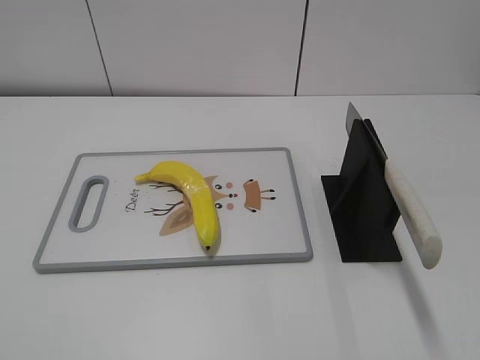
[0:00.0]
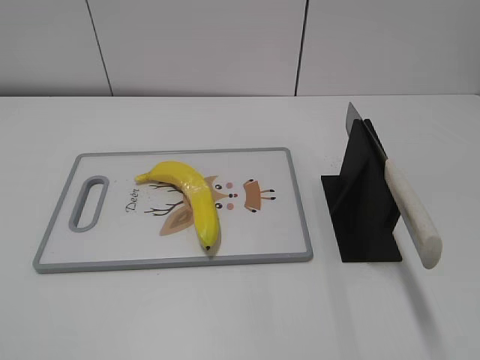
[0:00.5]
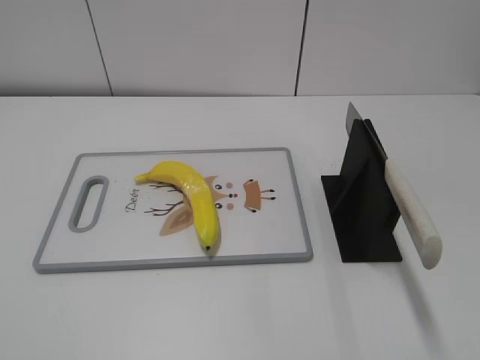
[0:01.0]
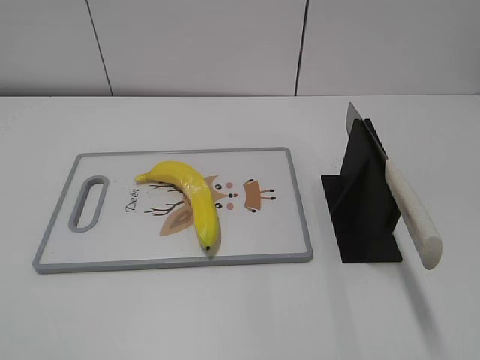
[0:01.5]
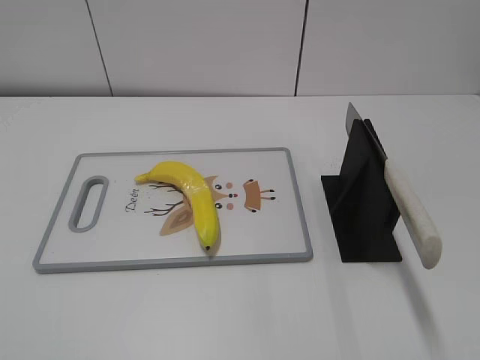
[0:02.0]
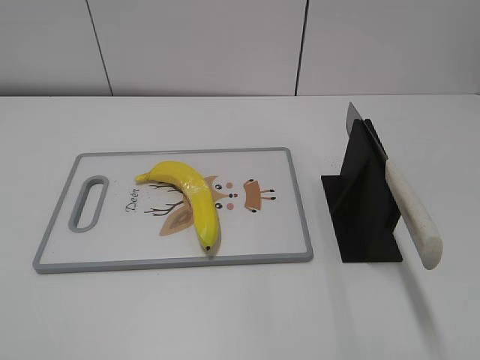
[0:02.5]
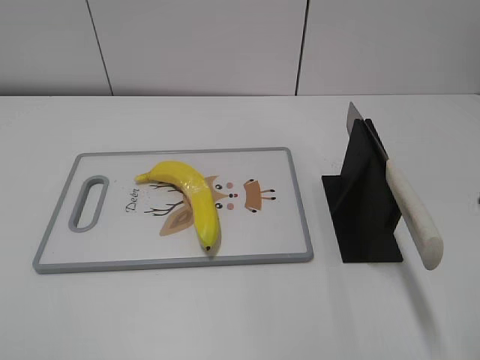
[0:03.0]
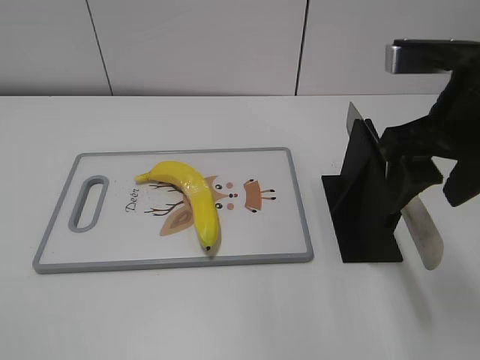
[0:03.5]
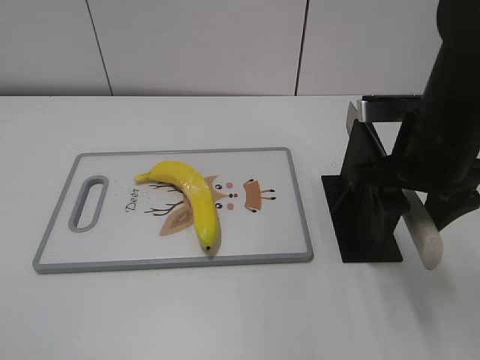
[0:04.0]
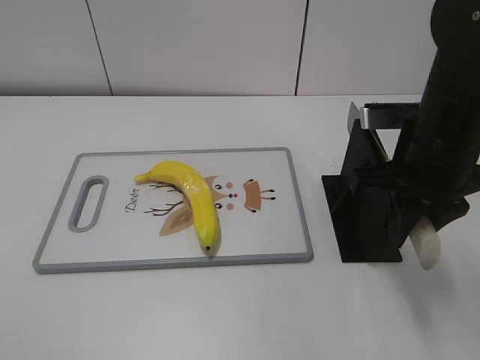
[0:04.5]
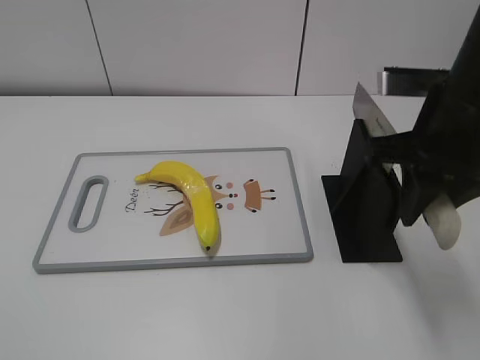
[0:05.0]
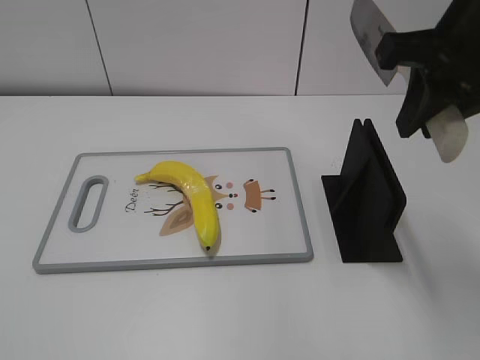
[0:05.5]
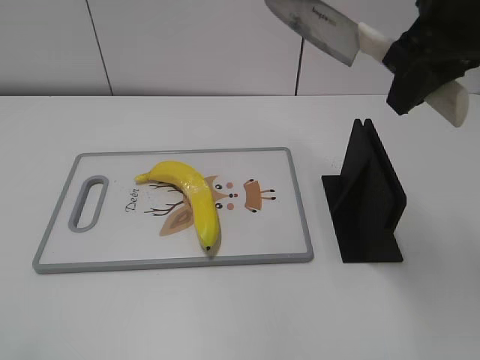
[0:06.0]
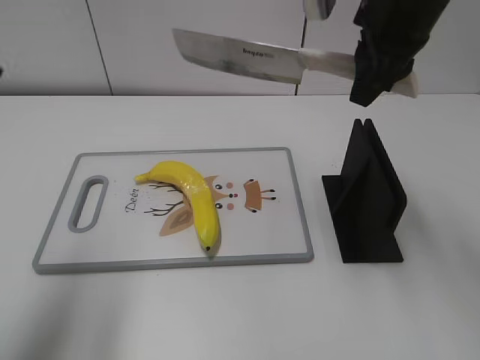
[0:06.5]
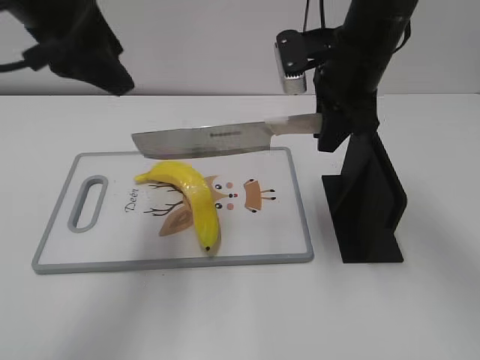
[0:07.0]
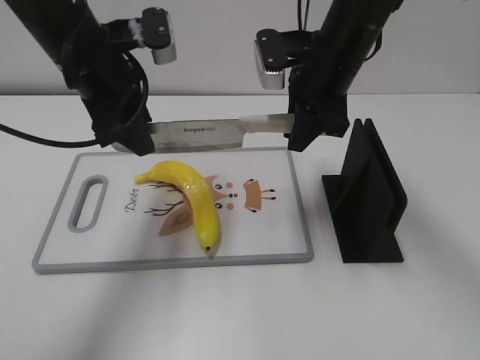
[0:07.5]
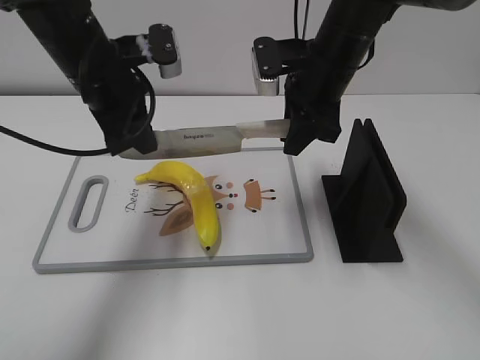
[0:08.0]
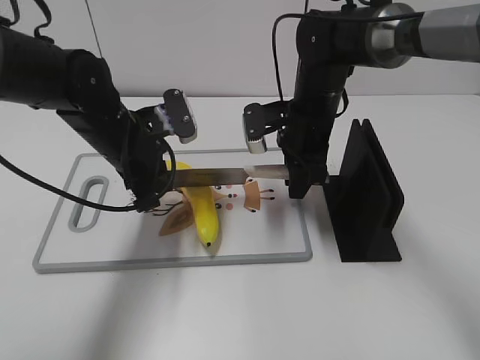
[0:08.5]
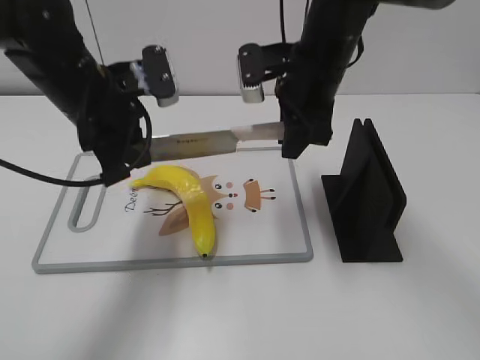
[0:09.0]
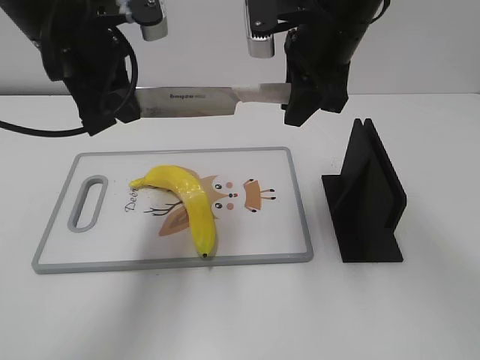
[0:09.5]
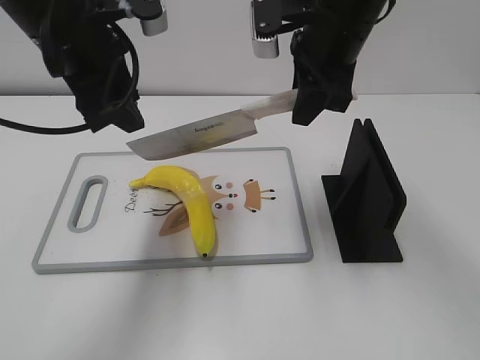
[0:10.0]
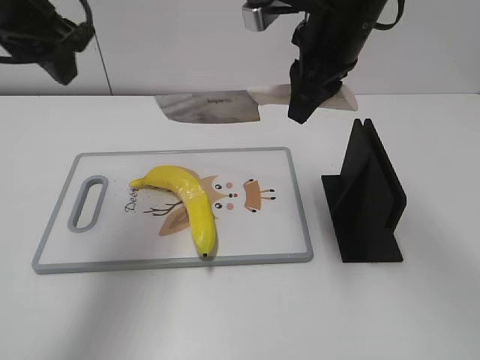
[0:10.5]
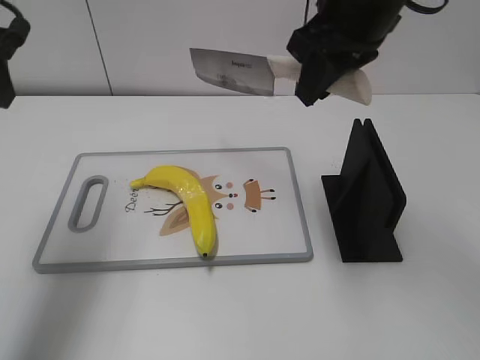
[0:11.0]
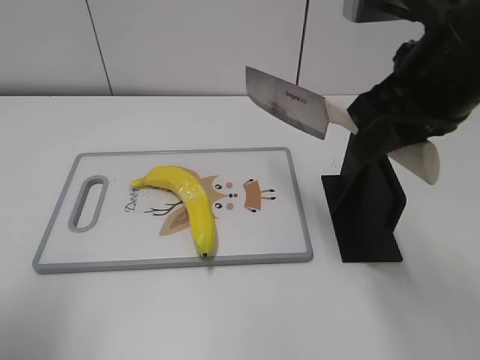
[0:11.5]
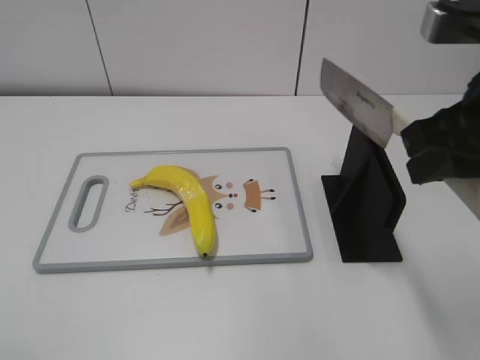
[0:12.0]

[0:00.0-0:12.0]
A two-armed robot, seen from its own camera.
Task of the whole recording: cut plastic banana.
Step, 0:00.0 to 0:05.5: Grab the knife handle with your right hand.
Step, 0:06.0 to 0:09.5: Lift the knife with your right hand.
Step, 0:11.0 to 0:12.0: Lift the knife with your right hand.
0:02.0 to 0:04.0: The right gripper is displaced forward and to the left by some 30 cm.
0:04.0 to 0:06.0: The right gripper goes about 10 cm upward, and closes up, while the left gripper moves forward, some 5 cm.
0:06.0 to 0:08.0: The left gripper heads forward and to the right, covering about 35 cm, and closes its fingers. The right gripper moves downward, forward and to the left, approximately 20 cm.
0:08.0 to 0:10.0: The left gripper travels downward and back again, approximately 10 cm each way, and opens up. The right gripper heads upward, covering approximately 5 cm.
0:10.0 to 0:12.0: The right gripper goes some 20 cm backward and to the right. The left gripper travels backward and to the left by roughly 30 cm.

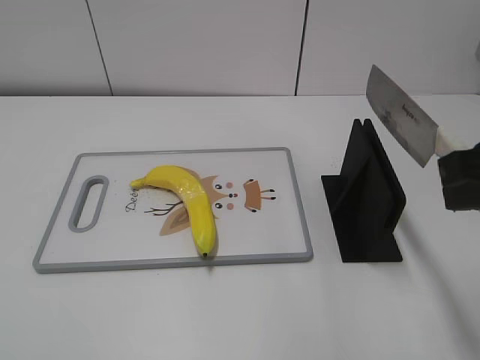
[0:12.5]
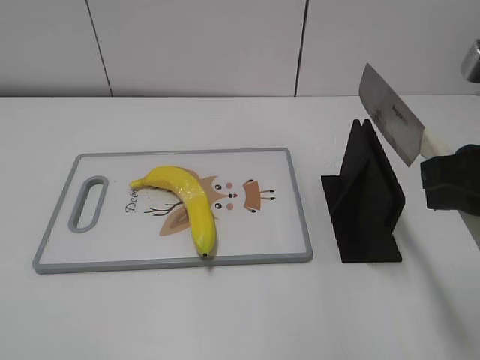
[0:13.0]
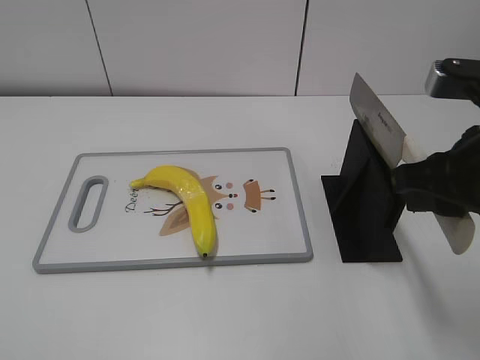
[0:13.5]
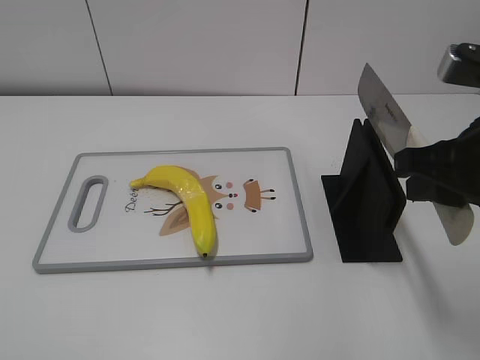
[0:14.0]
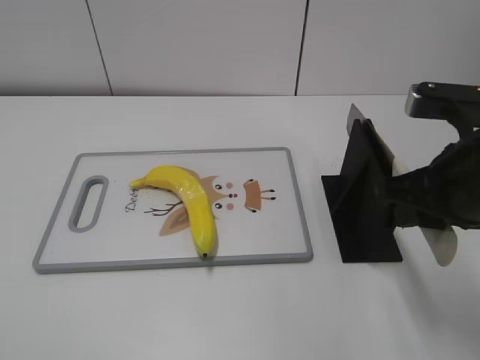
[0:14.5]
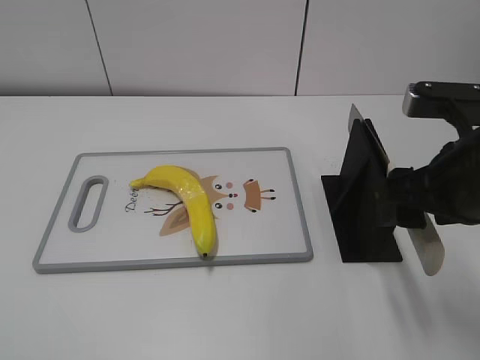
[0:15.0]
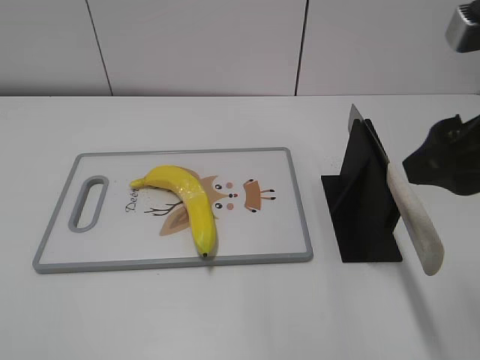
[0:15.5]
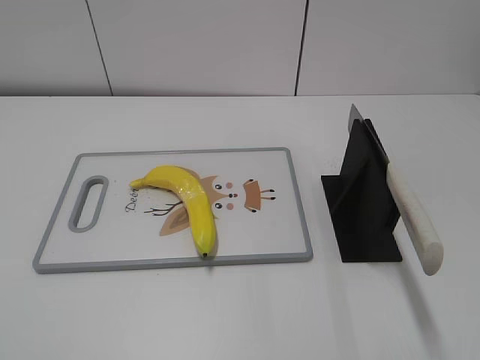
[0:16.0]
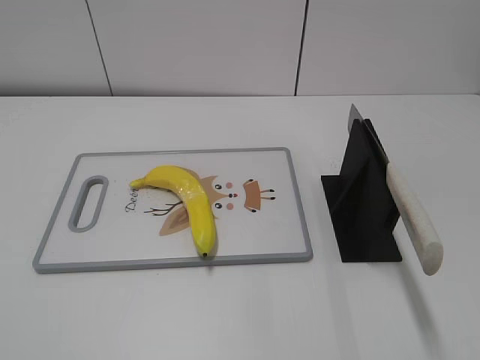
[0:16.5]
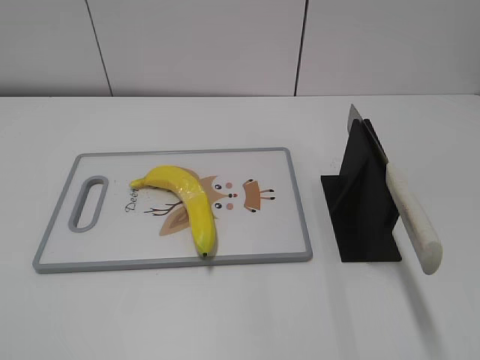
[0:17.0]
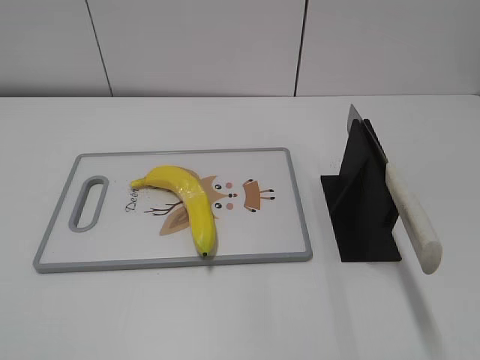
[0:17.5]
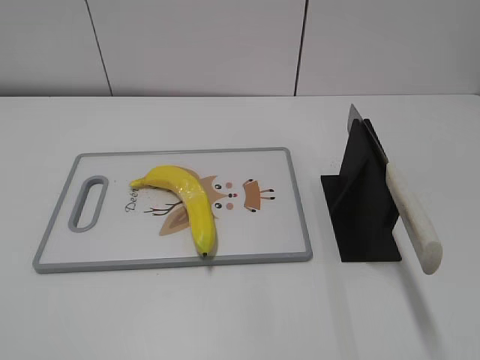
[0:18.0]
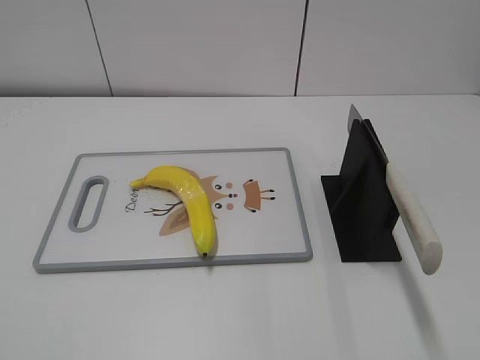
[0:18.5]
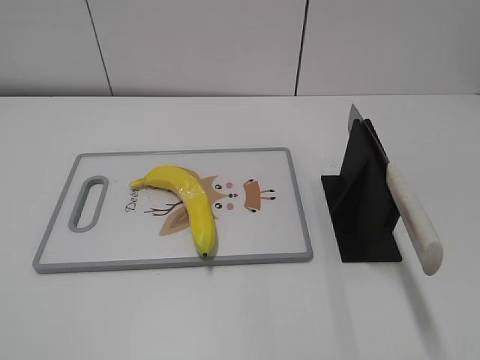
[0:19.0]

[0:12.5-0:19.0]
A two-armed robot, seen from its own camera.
Task of the whole recording: cut plastic banana.
Step, 0:12.5 to 0:18.0: Place the knife on the storage rack with your right hand.
0:12.5 to 0:14.5: The right gripper heads downward, covering roughly 5 cm.
0:14.5 to 0:17.0: The right gripper moves backward and to the right, approximately 25 cm, and opens.

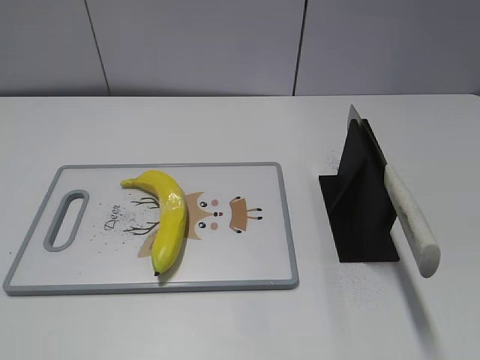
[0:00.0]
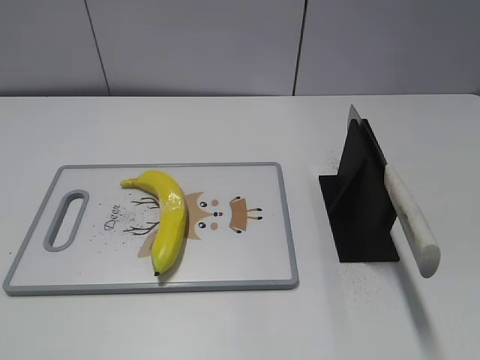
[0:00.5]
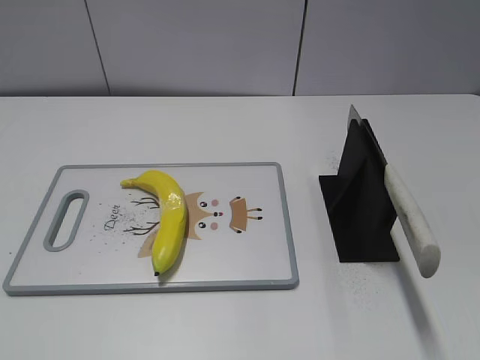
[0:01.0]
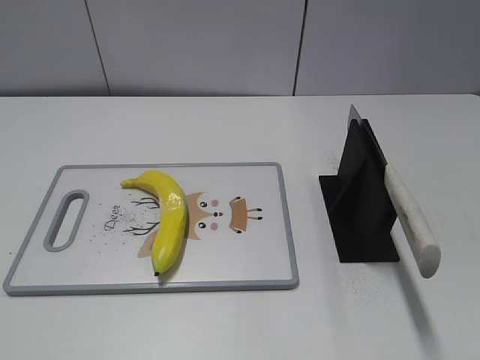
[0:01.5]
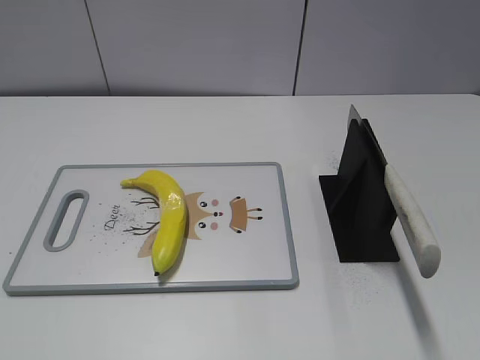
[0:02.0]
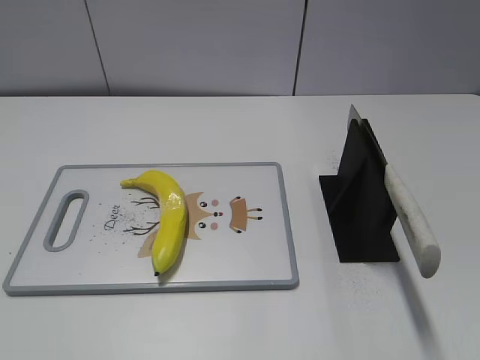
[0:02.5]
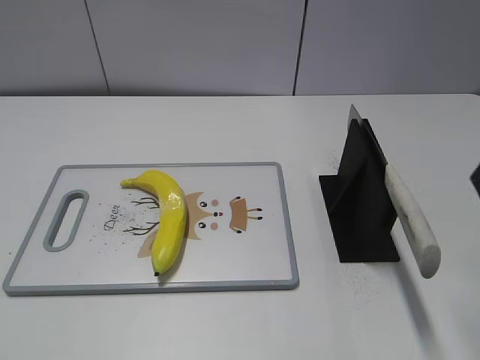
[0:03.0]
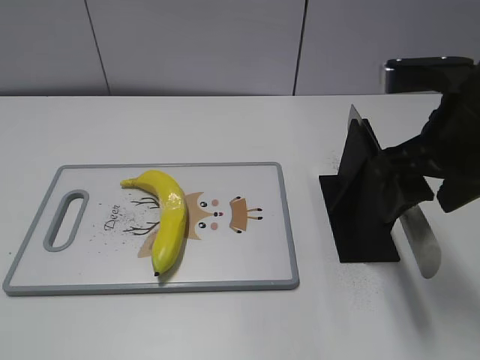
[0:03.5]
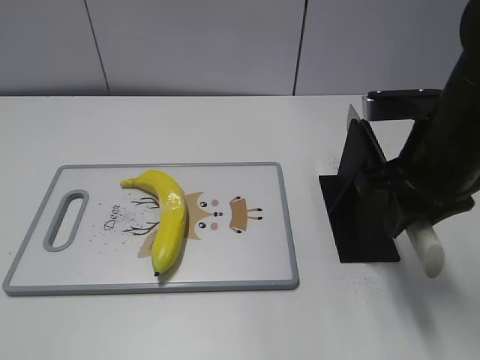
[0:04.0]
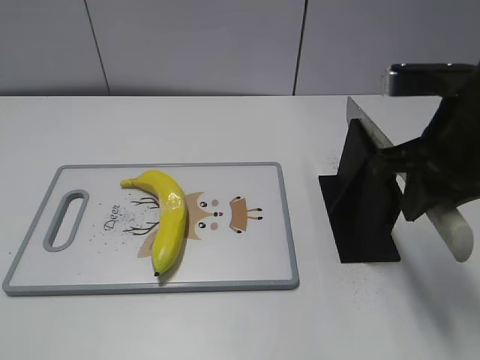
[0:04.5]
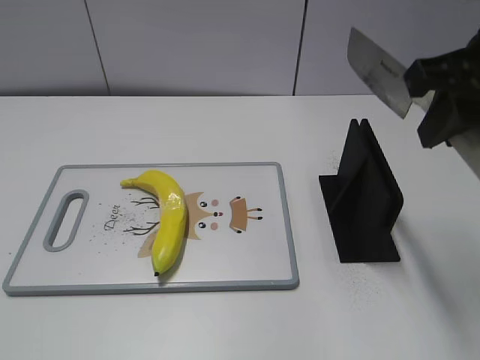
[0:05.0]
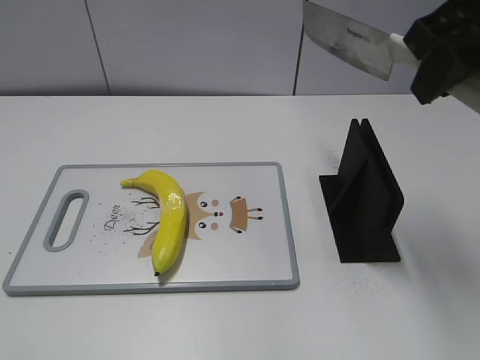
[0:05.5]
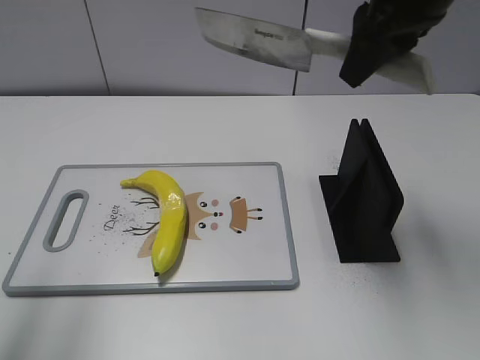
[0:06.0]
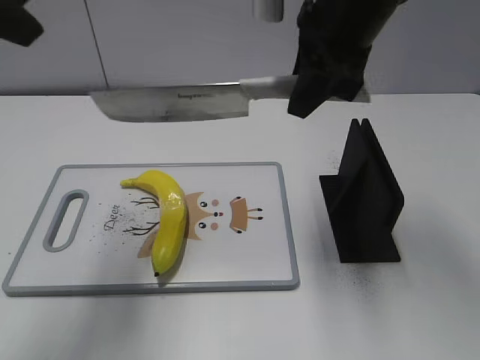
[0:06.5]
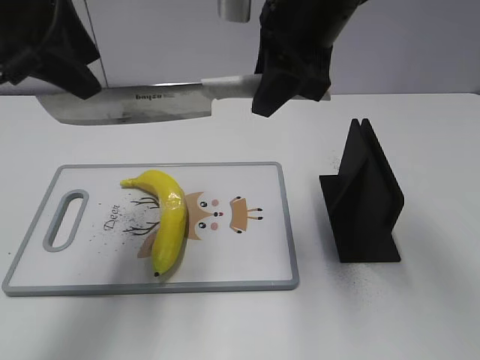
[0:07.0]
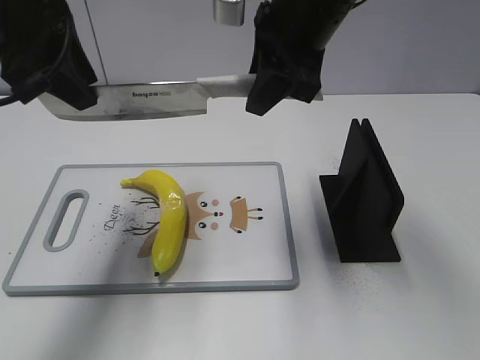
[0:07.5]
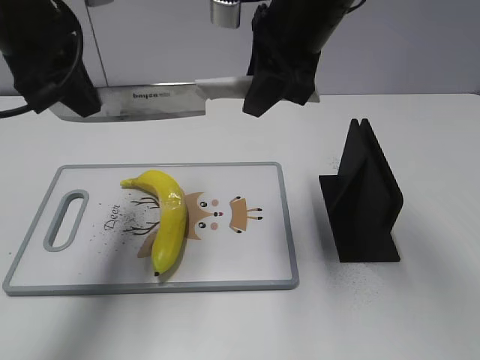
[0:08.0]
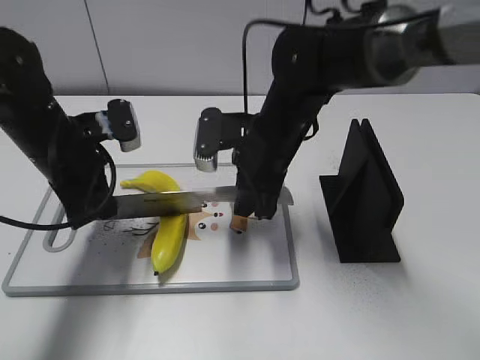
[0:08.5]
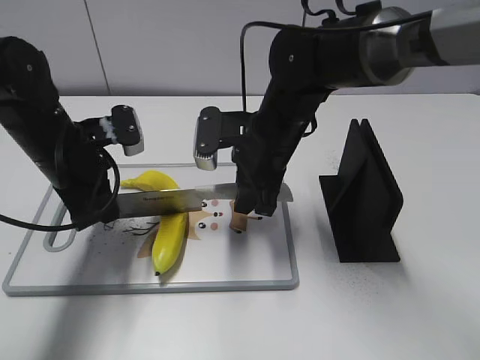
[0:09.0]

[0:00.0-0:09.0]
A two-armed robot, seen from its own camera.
Task of the whole recording: cut plastic banana.
Step, 0:00.0 to 0:05.0: Grab the knife handle with your right hand.
0:02.0 to 0:04.5: The right gripper shifts approximately 25 cm forward and to the left, and closes its fingers.
0:04.5 to 0:07.0: The left gripper shifts approximately 30 cm forward. The right gripper moves to the left, forward and upward, roughly 15 cm.
0:07.0 to 0:09.0: Both grippers move downward, approximately 20 cm. The left gripper closes its fingers.
